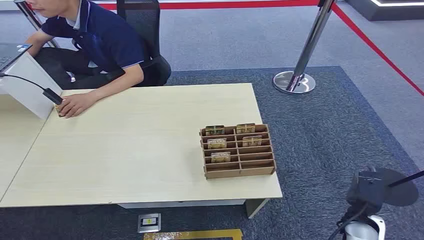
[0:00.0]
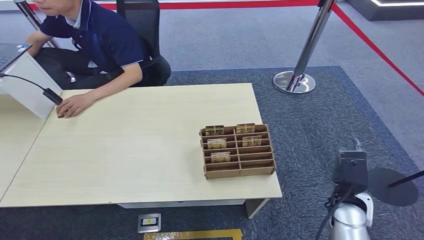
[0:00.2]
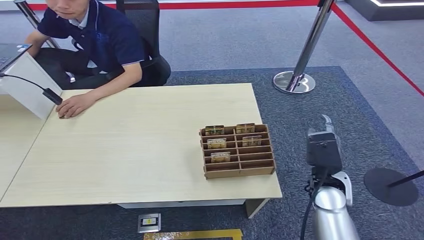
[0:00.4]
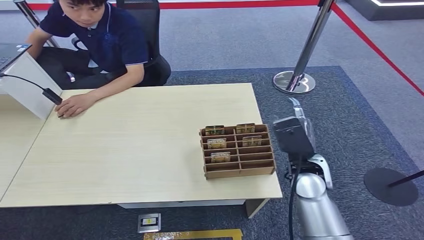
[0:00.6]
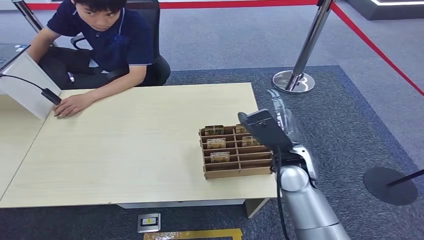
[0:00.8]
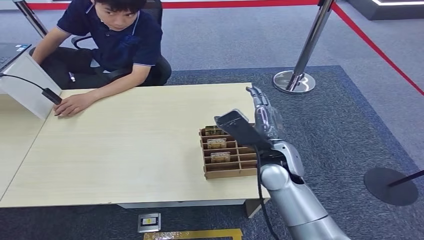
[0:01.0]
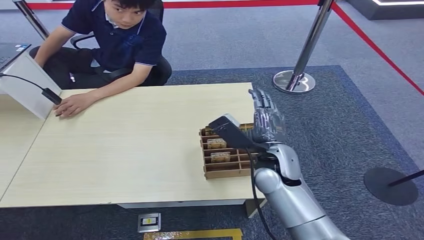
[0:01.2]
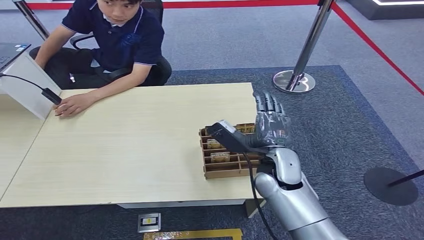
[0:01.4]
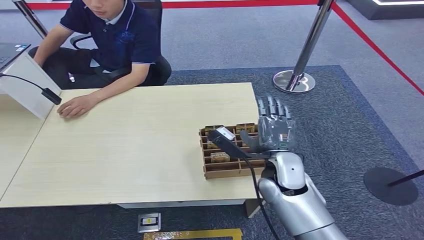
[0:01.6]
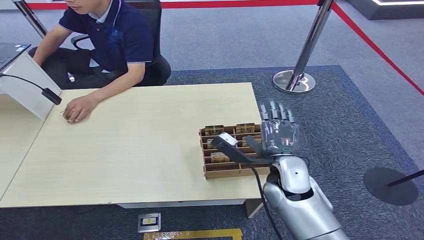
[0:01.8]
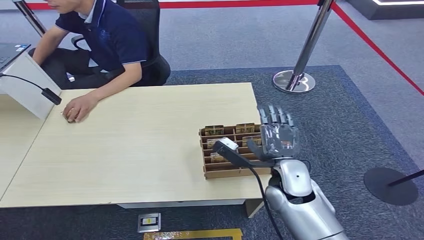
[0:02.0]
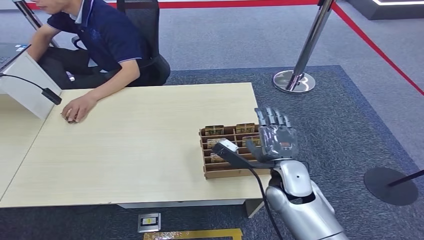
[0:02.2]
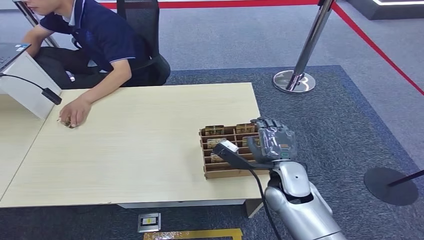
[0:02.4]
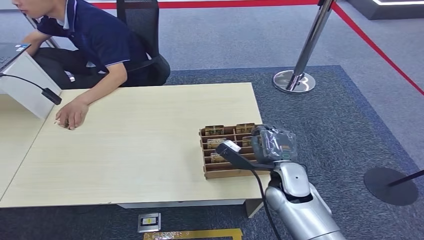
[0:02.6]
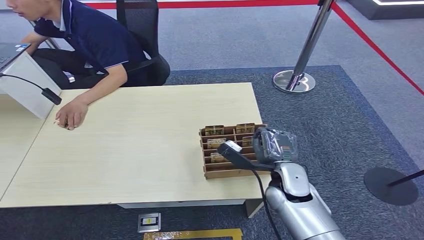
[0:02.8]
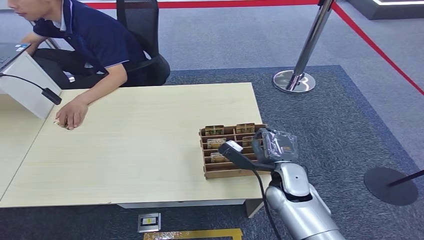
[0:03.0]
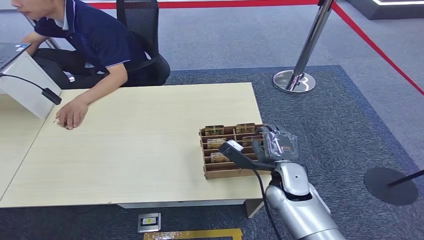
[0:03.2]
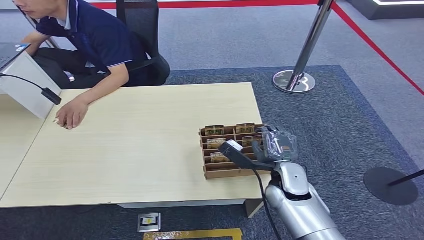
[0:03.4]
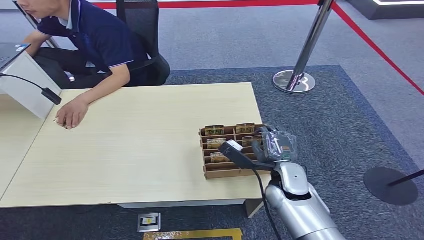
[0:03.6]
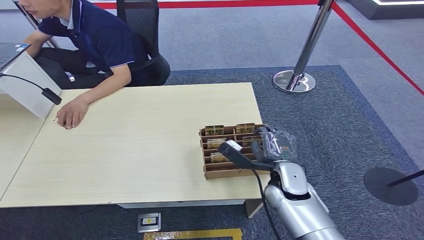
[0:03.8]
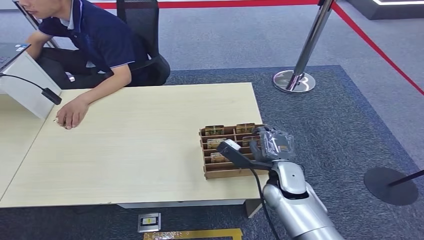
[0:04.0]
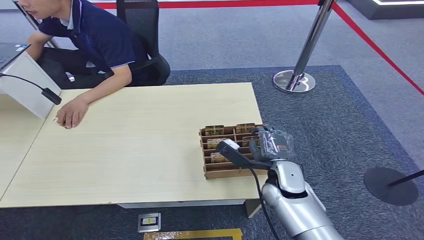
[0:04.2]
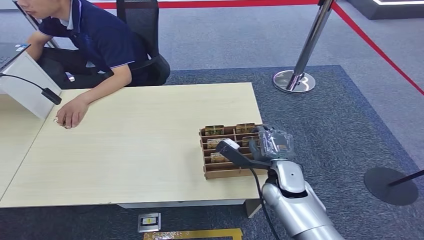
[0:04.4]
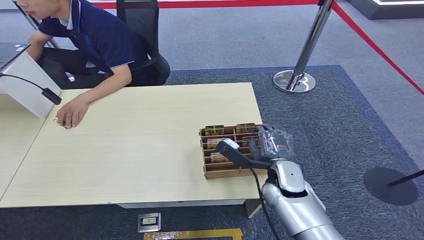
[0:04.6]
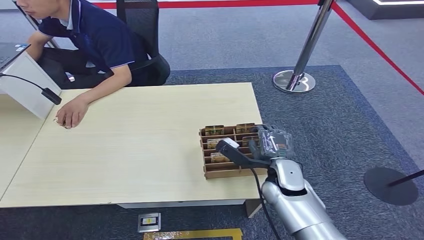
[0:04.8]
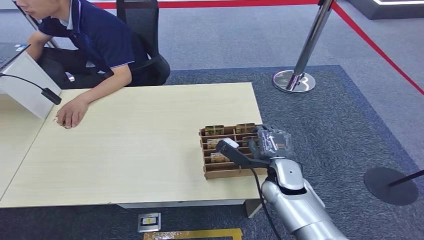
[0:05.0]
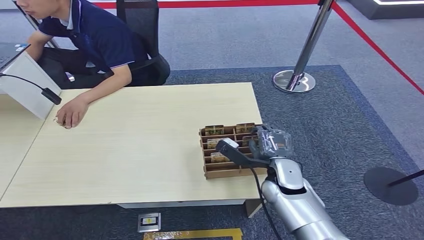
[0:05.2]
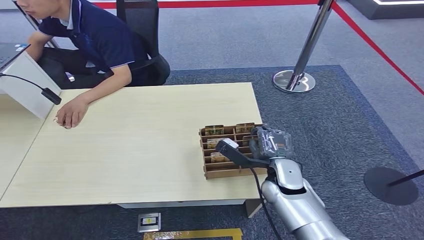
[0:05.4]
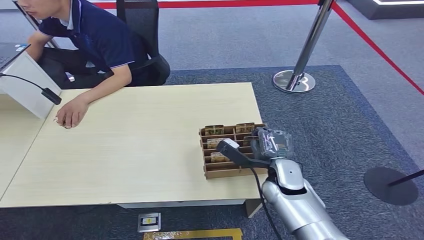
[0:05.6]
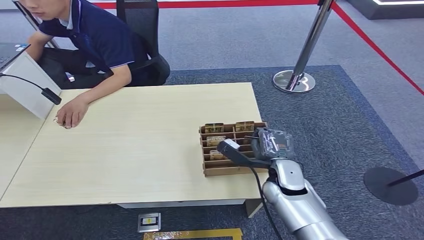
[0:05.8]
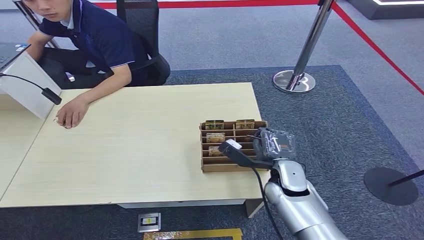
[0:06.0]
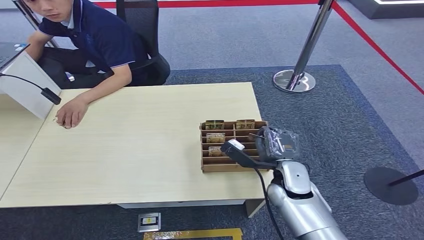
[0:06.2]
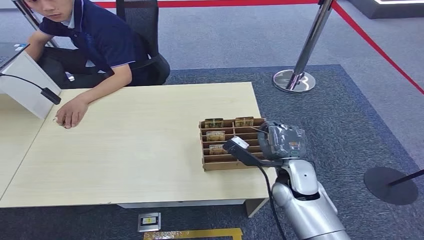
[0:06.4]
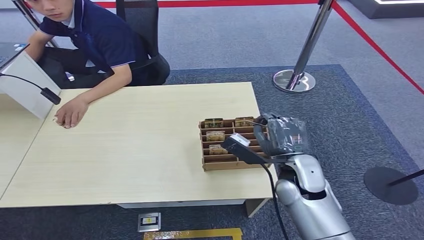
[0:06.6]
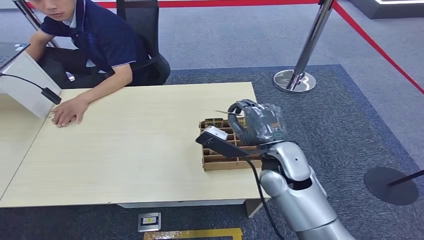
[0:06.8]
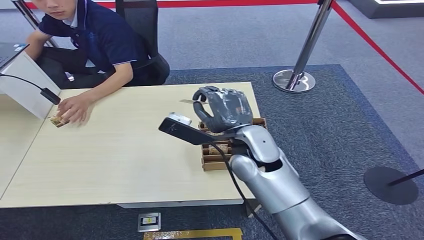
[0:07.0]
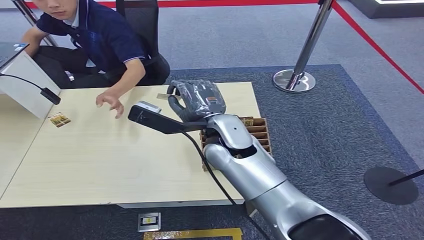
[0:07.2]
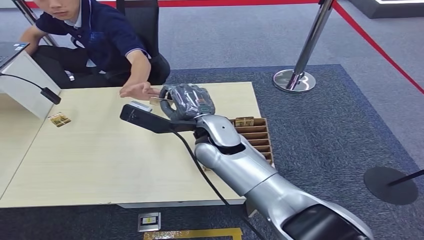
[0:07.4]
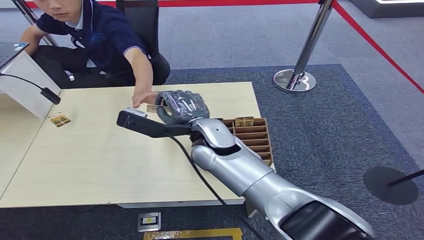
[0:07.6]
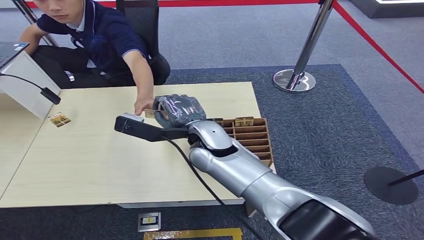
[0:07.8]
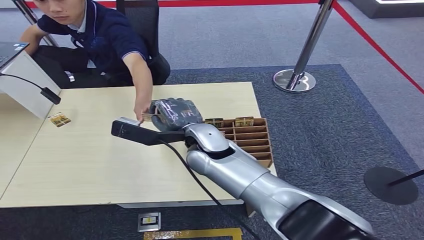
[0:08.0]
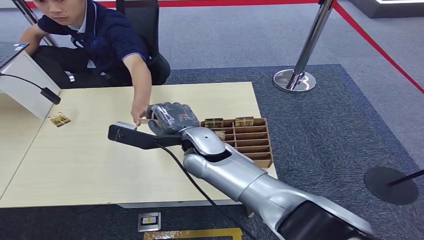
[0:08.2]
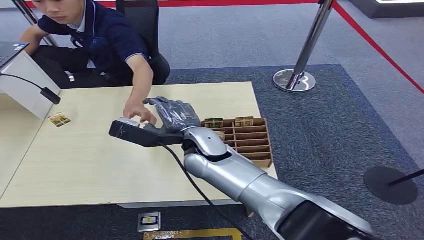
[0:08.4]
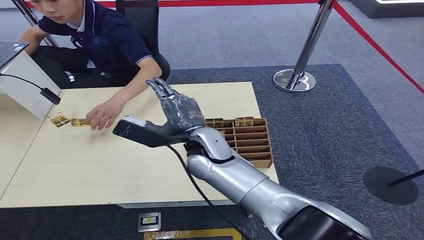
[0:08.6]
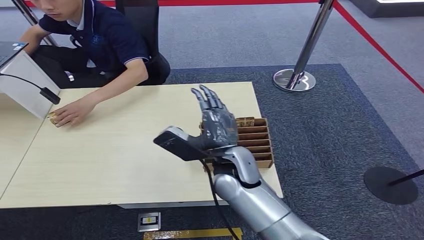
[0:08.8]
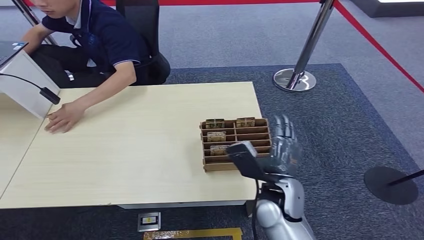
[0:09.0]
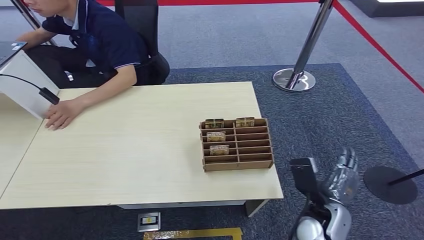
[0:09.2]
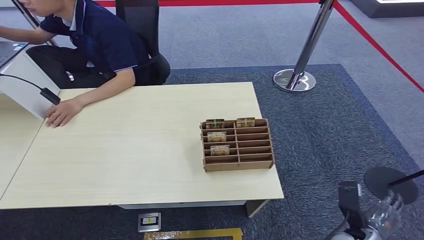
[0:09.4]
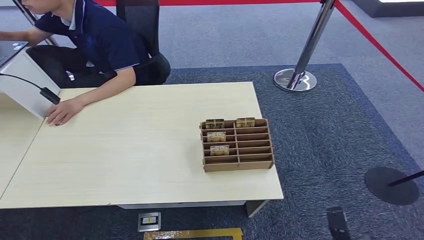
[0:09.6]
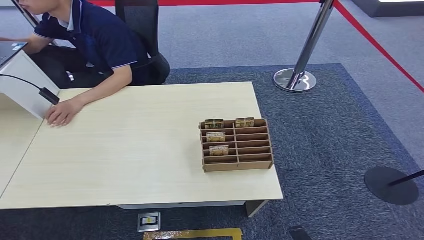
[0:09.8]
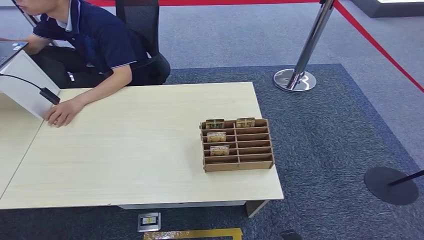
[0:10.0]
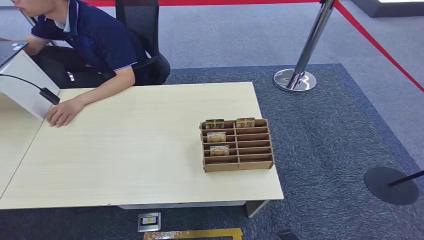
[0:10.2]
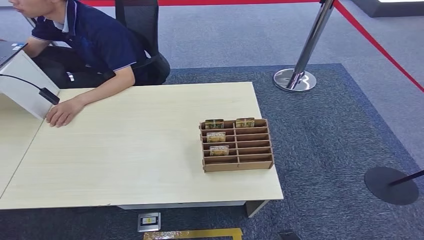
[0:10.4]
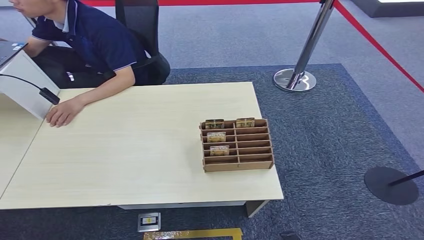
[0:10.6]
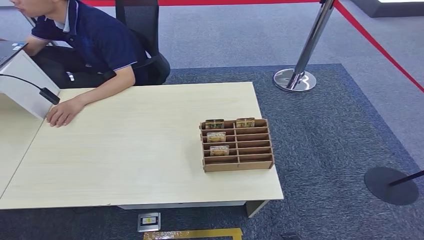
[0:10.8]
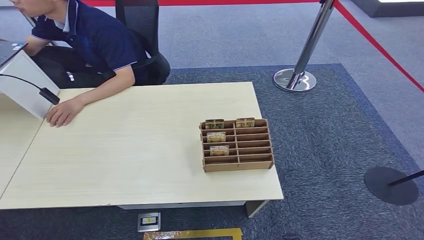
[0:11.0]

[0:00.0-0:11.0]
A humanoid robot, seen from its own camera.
Step, 0:00.0 to 0:06.6: Pick up the room card from the card holder.
Step, 0:06.8 to 0:11.0: Hand the room card to the target.
0:01.6 to 0:03.2: The right hand goes about 5 cm downward.
0:03.2 to 0:04.8: Both hands stay about where they are.
0:04.8 to 0:06.2: The two hands keep their place.
0:06.2 to 0:07.8: The right hand heads to the left, upward and forward, covering roughly 20 cm.
0:07.8 to 0:09.4: The right hand goes approximately 40 cm to the right, downward and backward.
0:09.4 to 0:11.0: The right hand travels backward, downward and to the left by roughly 15 cm, while the left hand moves to the left, roughly 5 cm.
